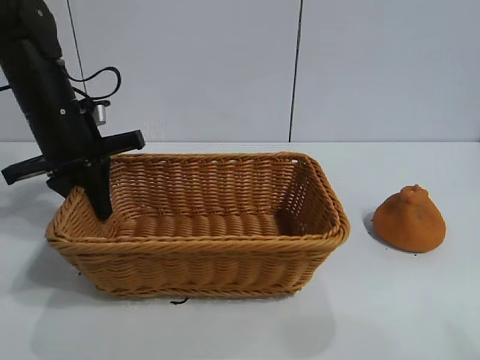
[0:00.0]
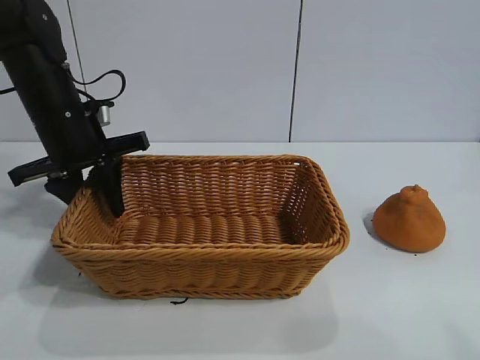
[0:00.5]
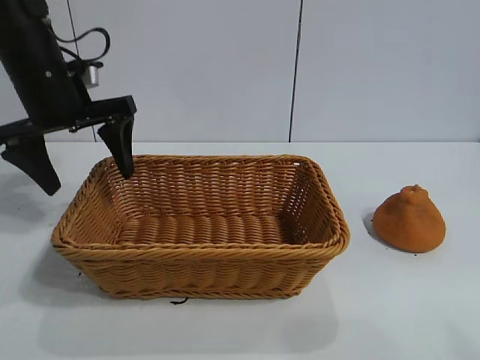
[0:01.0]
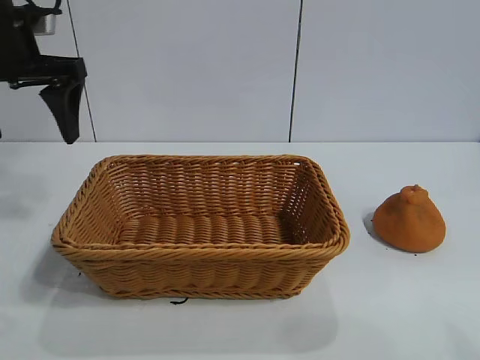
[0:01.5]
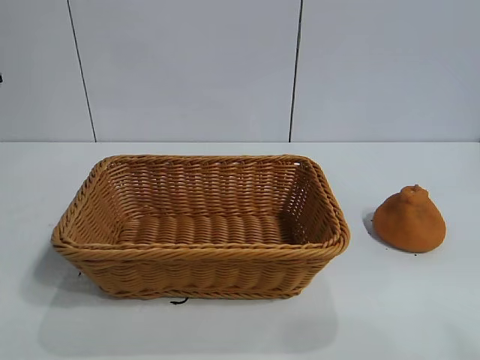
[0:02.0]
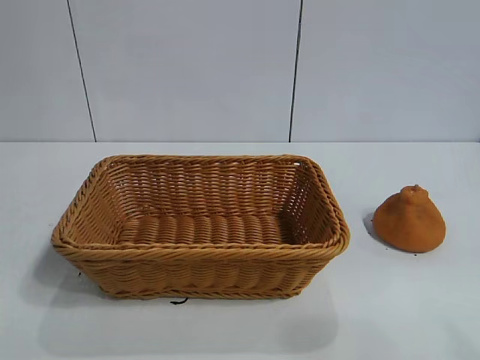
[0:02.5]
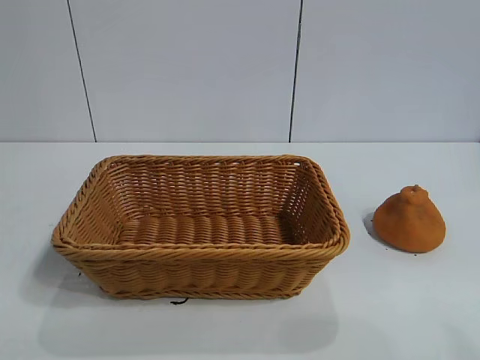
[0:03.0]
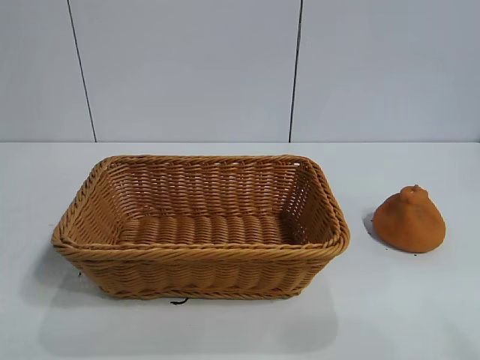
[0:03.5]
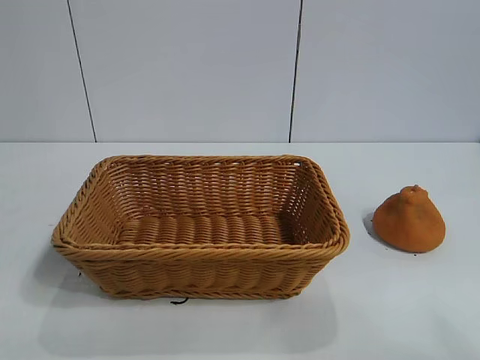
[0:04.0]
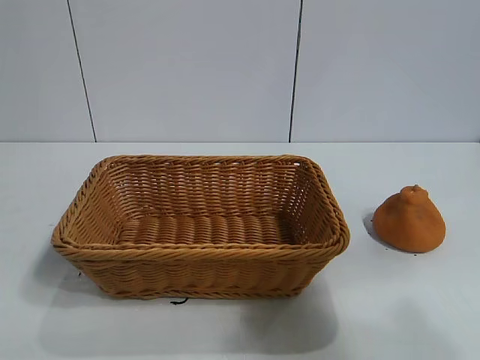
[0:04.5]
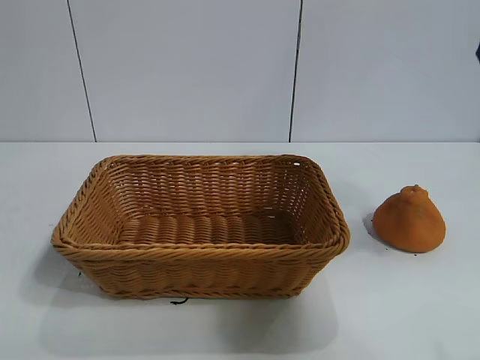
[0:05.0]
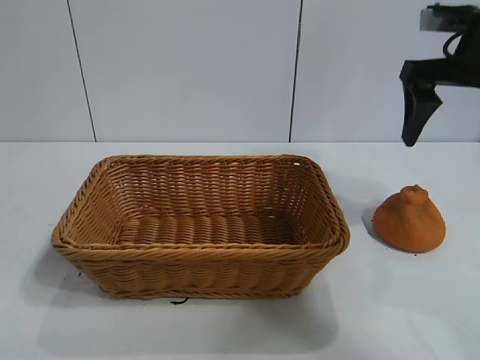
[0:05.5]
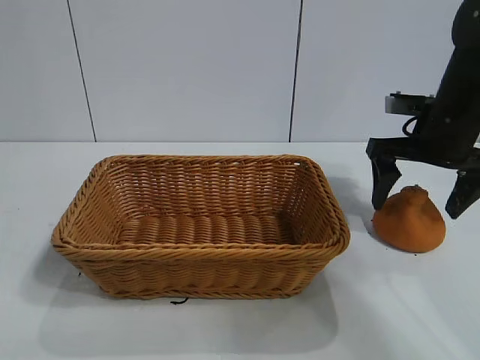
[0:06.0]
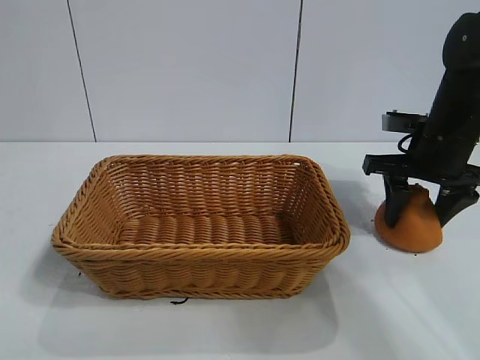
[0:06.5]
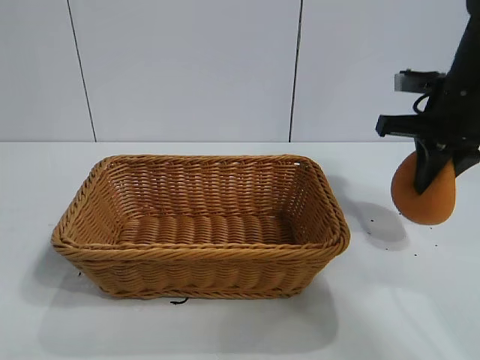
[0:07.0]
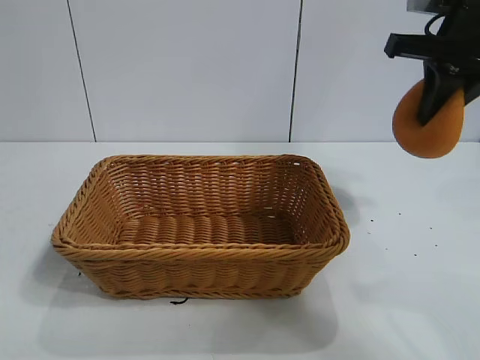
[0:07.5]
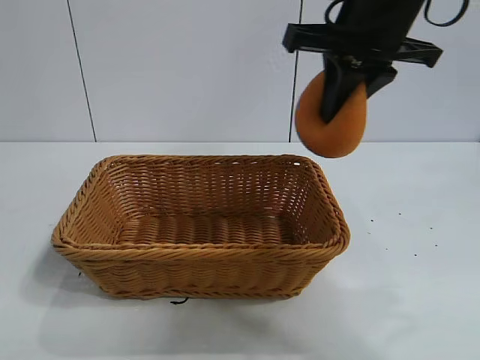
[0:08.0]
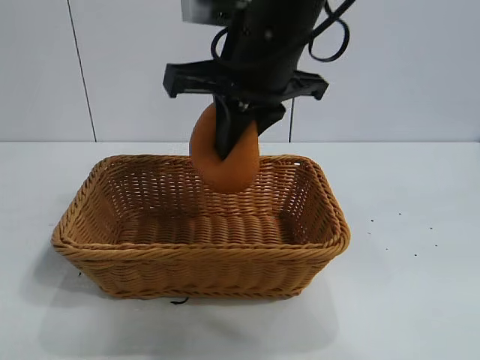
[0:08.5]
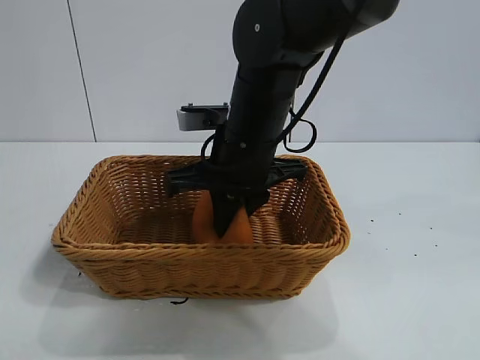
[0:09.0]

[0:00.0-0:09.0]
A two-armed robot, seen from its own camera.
Task of the whole recording: pick up the orange and put it into the basket.
Step, 0:01.0 to 0:06.5: Grasp the orange with right gripper.
